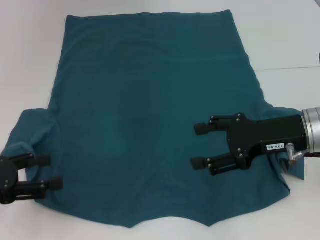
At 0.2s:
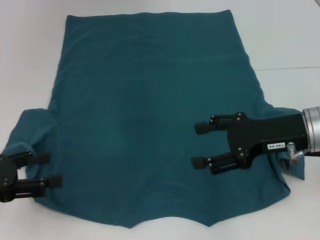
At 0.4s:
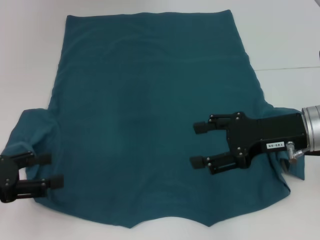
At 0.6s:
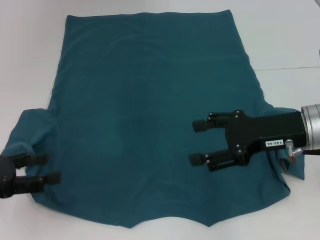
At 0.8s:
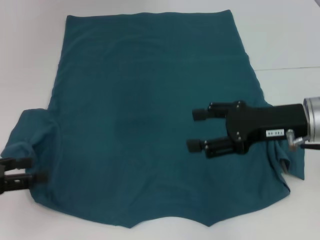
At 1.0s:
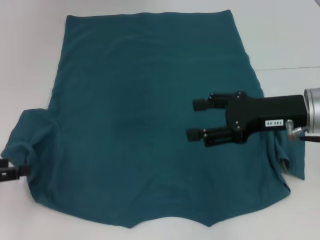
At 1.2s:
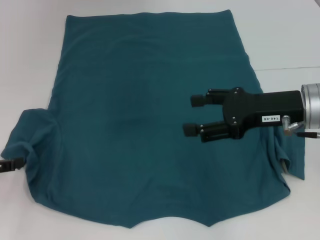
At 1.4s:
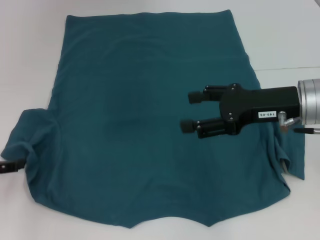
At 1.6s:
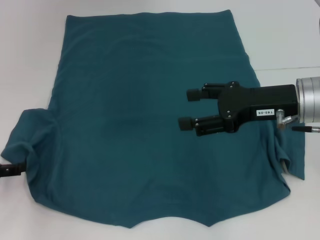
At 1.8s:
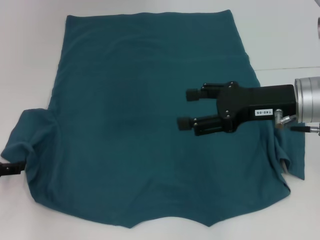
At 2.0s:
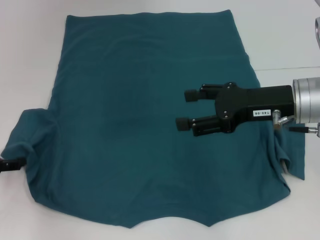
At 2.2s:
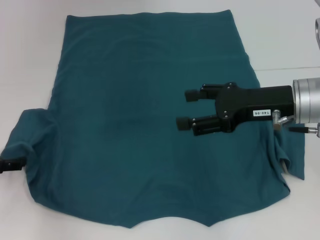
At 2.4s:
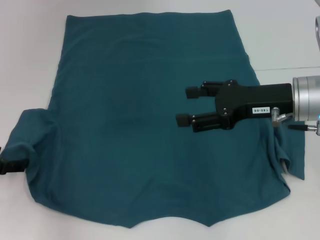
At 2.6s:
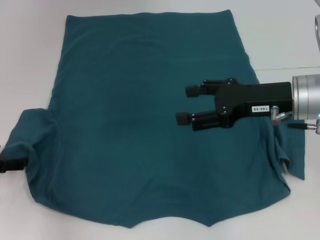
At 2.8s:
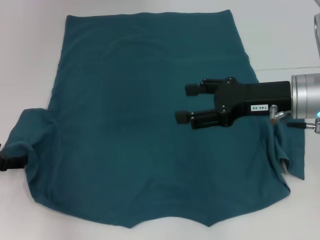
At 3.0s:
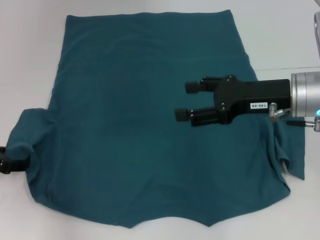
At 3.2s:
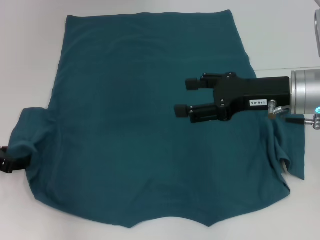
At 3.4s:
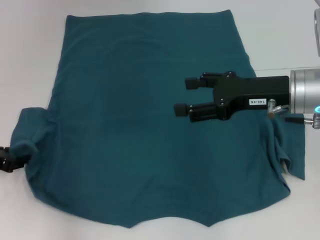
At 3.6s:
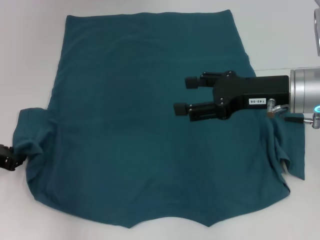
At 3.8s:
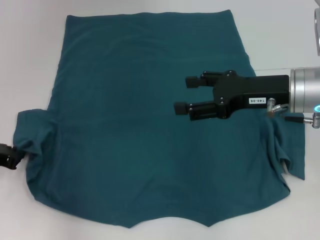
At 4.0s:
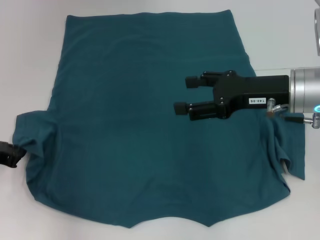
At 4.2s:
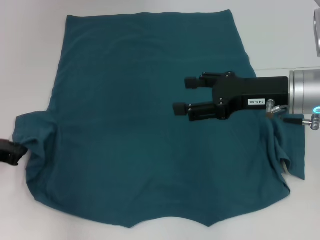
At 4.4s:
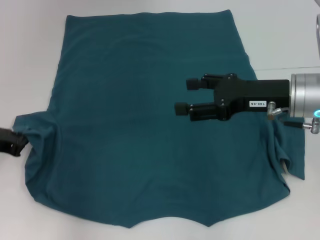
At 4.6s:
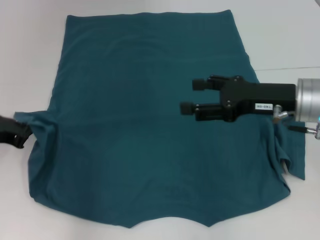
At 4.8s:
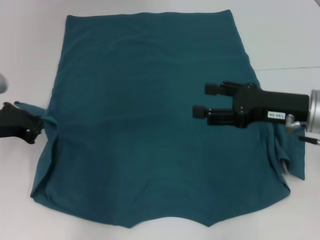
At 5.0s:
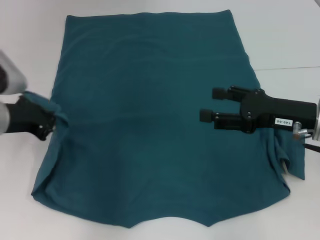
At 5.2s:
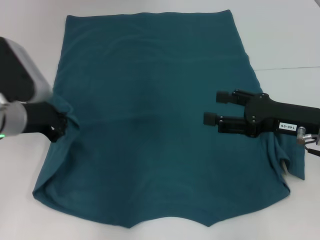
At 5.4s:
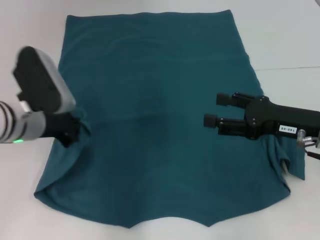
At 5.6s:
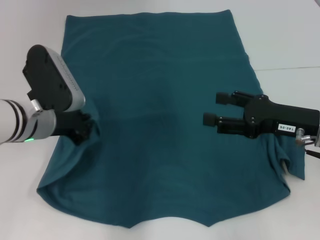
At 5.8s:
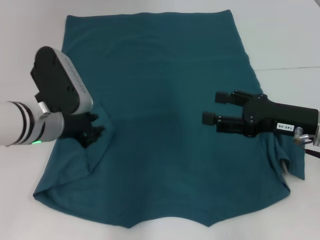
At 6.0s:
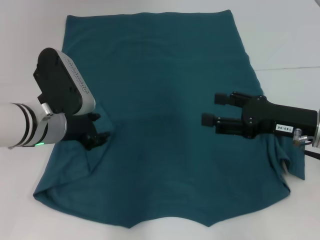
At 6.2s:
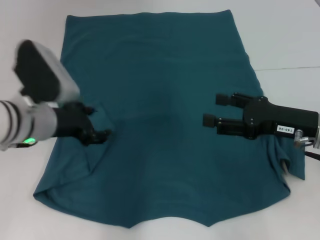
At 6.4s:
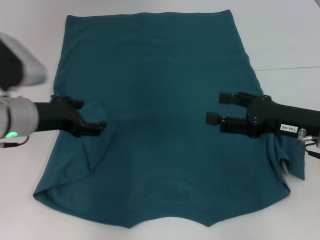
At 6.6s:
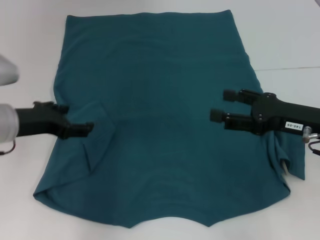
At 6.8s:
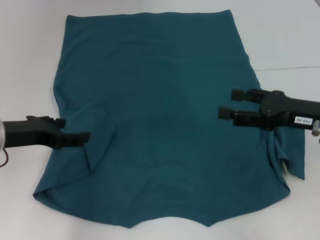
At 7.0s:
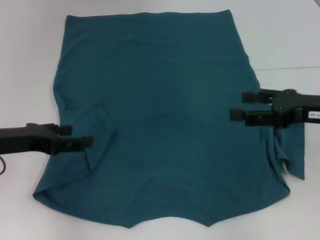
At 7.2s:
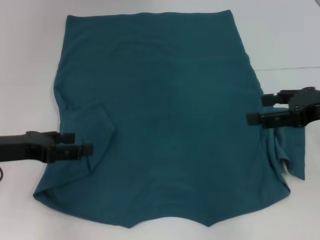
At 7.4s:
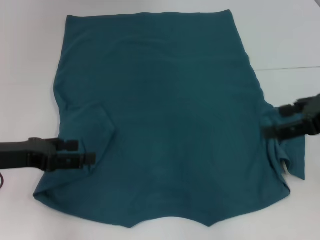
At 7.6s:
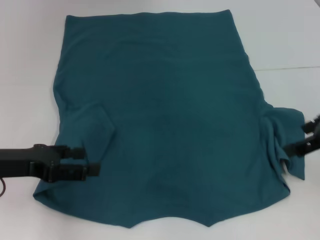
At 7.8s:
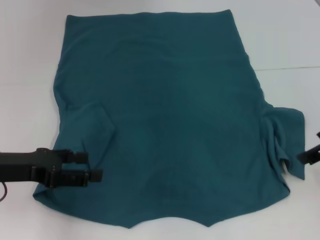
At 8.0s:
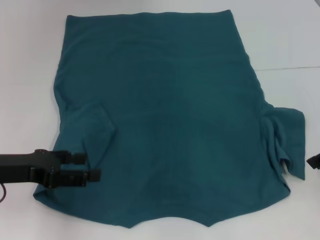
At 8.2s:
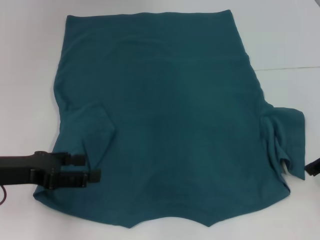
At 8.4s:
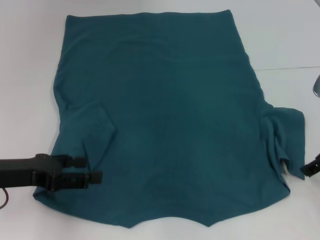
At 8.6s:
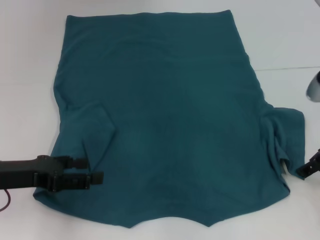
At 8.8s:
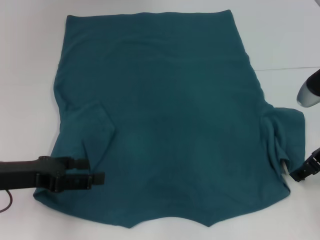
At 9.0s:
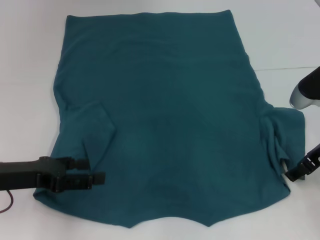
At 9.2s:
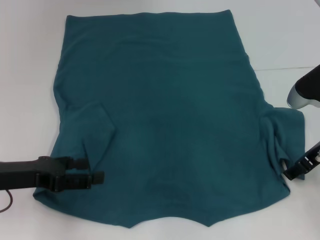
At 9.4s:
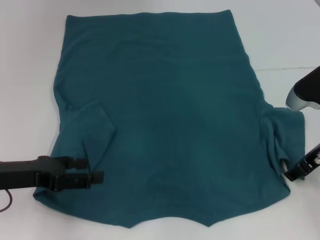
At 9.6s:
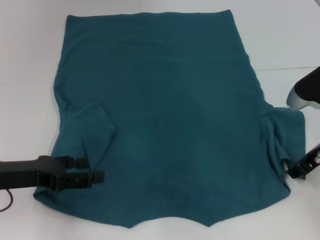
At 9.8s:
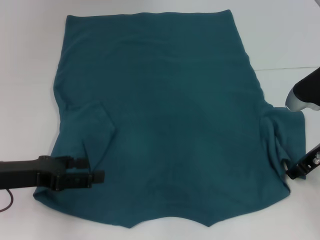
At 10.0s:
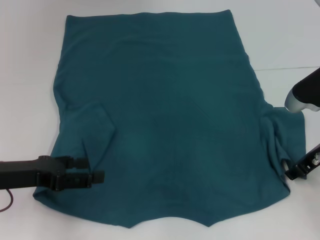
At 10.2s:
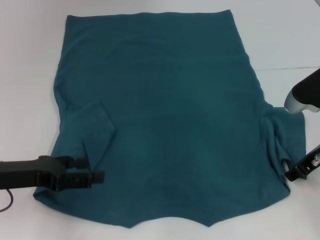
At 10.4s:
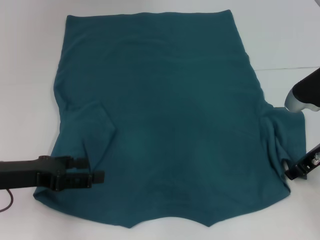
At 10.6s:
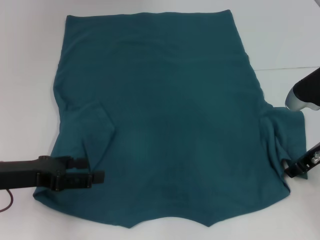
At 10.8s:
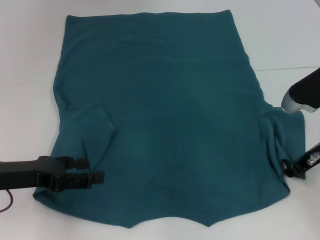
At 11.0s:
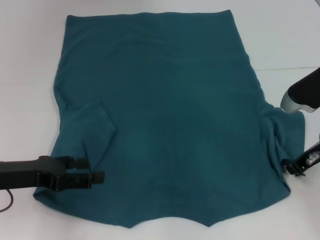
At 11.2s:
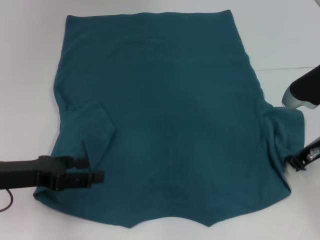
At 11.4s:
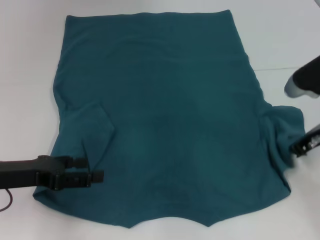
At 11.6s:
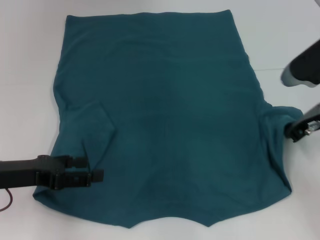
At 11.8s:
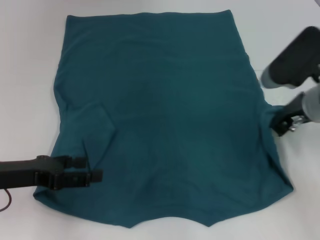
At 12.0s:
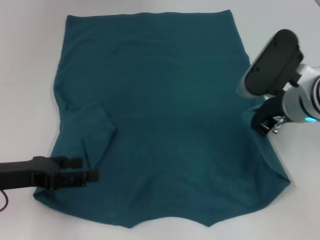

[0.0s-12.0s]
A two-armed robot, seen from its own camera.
Step, 0.0s to 6.0s: Fold the bottom left sleeve with your left hand.
0.0s to 1.6s: The left gripper ends up about 5 cm from where it was.
1.6s to 3.0s: The grippers make only small movements.
3.0s to 4.4s: The left gripper closes up.
4.4s to 6.0s: The left gripper is displaced to the right by approximately 15 cm, while the right gripper shifts by about 5 cm.
6.0s to 7.6s: The right gripper goes about 10 cm upward, while the left gripper is displaced to the left and backward by some 10 cm, and opens.
7.6s to 9.0s: The right gripper moves downward, approximately 10 cm.
9.0s to 10.4s: The right gripper closes up.
10.4s to 12.0s: The right gripper shifts approximately 5 cm to the left, and closes.

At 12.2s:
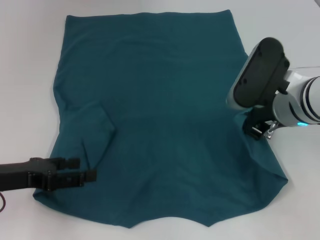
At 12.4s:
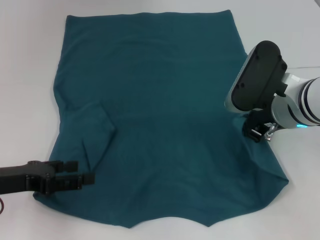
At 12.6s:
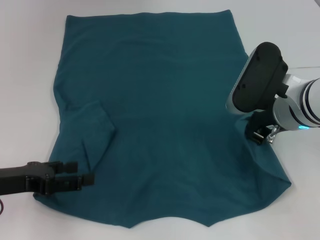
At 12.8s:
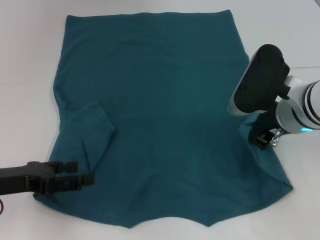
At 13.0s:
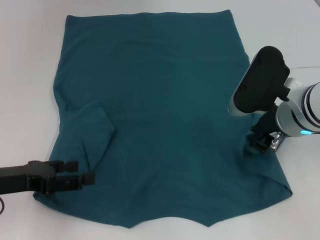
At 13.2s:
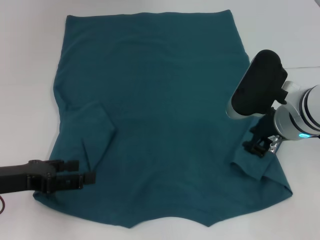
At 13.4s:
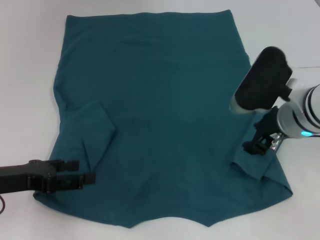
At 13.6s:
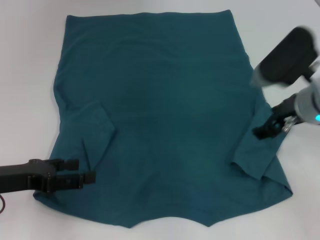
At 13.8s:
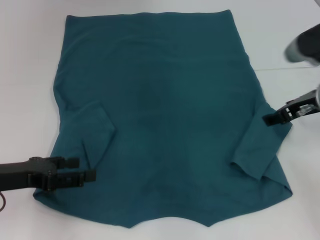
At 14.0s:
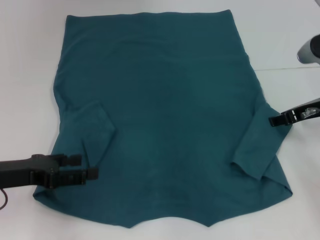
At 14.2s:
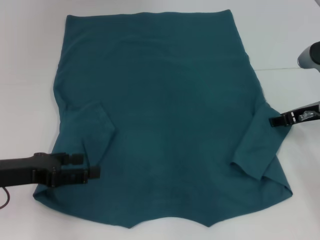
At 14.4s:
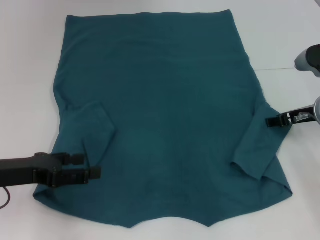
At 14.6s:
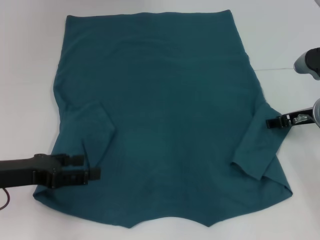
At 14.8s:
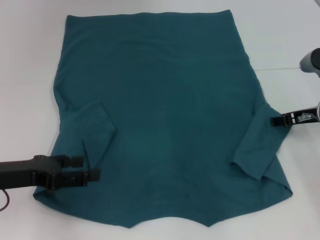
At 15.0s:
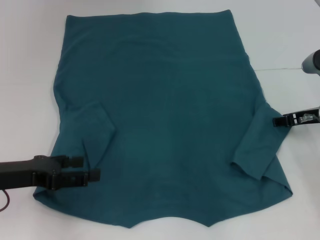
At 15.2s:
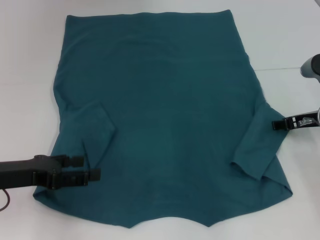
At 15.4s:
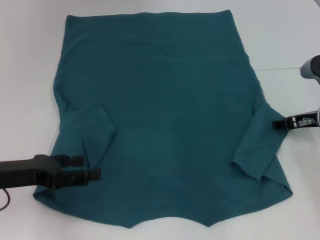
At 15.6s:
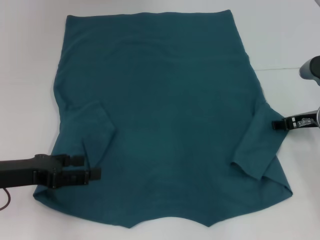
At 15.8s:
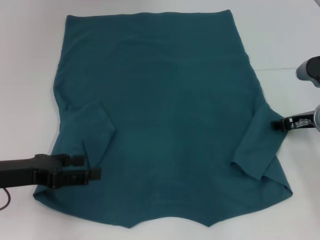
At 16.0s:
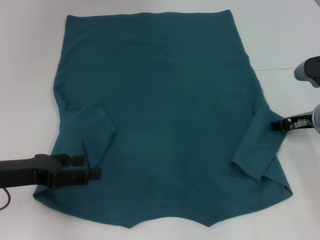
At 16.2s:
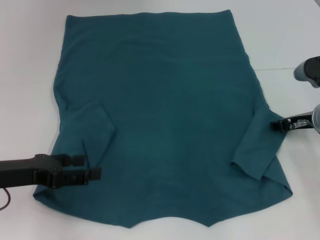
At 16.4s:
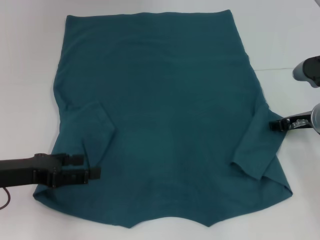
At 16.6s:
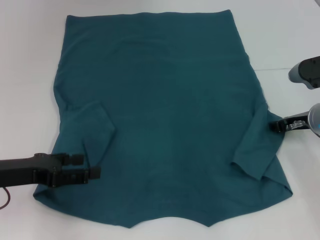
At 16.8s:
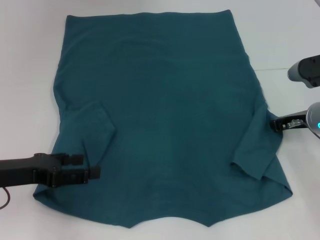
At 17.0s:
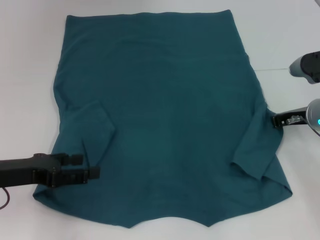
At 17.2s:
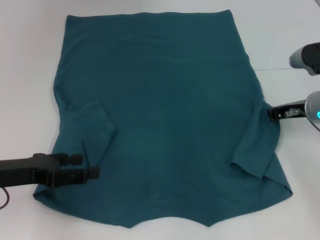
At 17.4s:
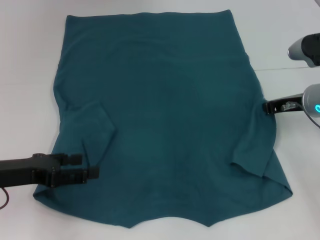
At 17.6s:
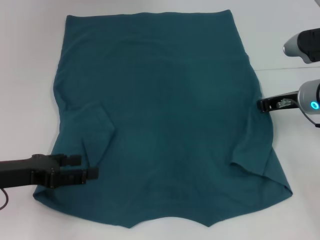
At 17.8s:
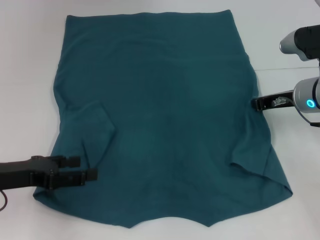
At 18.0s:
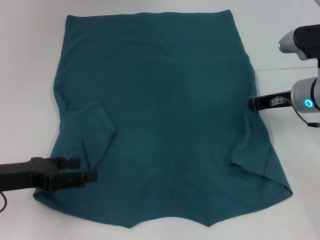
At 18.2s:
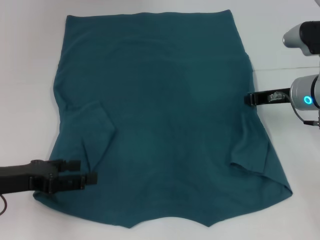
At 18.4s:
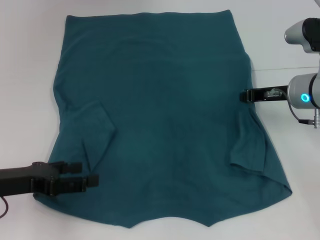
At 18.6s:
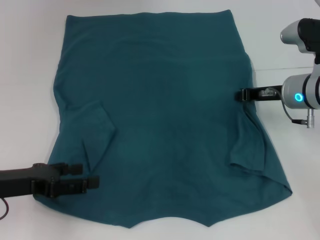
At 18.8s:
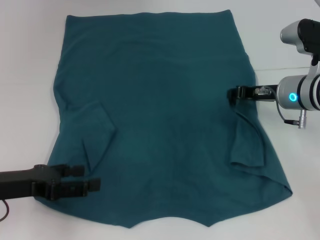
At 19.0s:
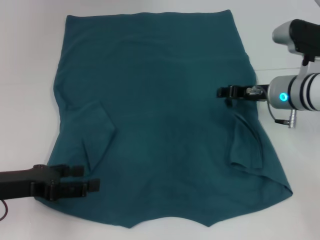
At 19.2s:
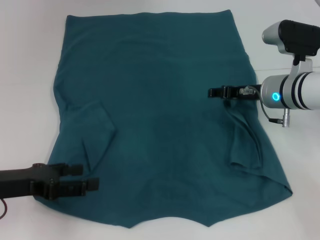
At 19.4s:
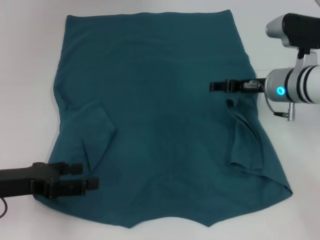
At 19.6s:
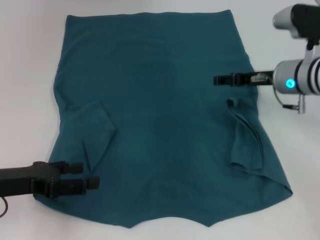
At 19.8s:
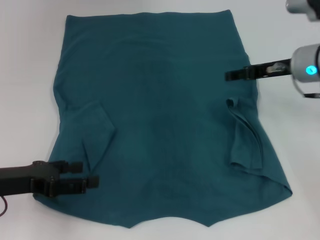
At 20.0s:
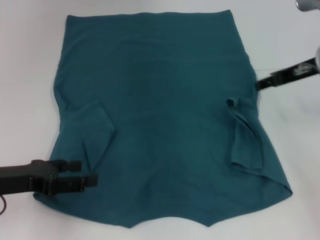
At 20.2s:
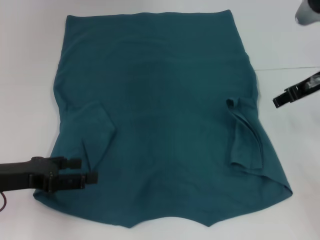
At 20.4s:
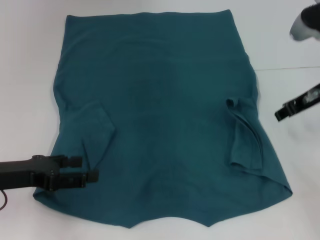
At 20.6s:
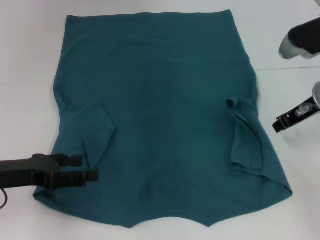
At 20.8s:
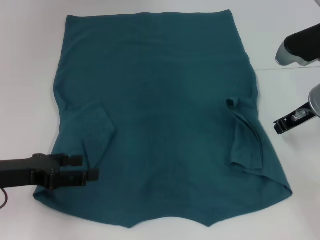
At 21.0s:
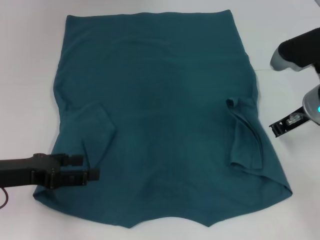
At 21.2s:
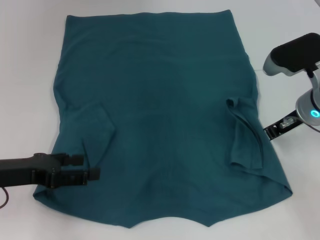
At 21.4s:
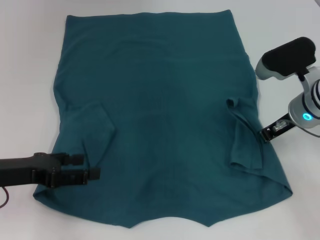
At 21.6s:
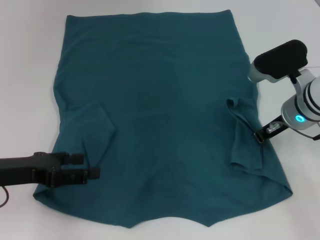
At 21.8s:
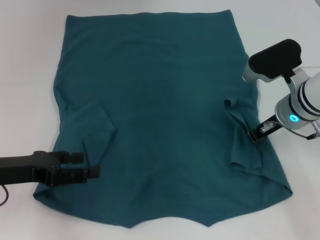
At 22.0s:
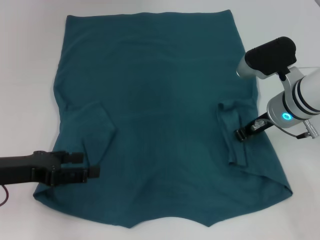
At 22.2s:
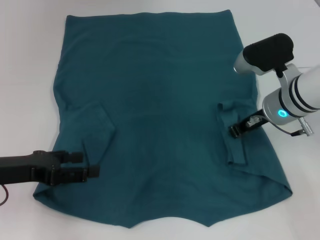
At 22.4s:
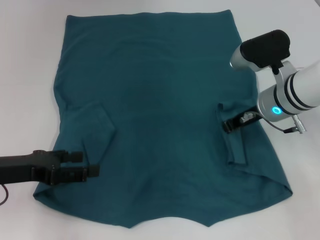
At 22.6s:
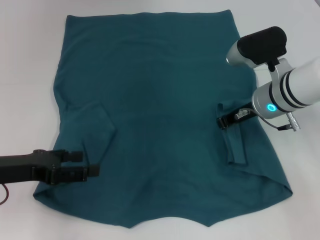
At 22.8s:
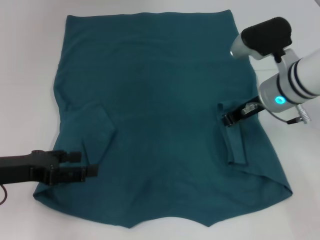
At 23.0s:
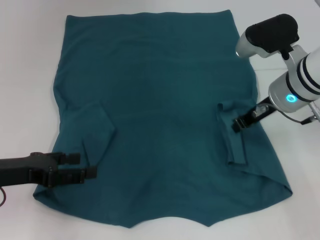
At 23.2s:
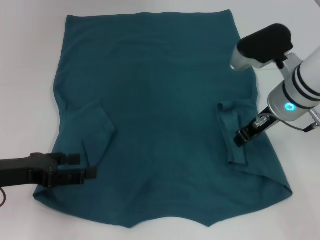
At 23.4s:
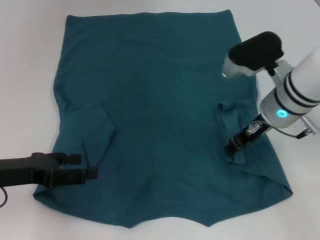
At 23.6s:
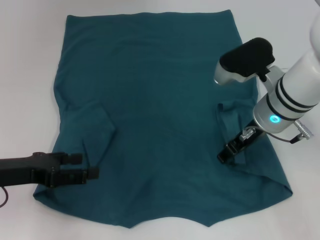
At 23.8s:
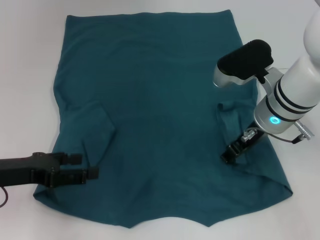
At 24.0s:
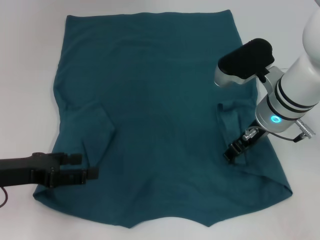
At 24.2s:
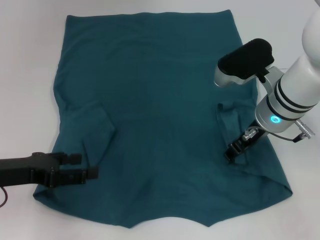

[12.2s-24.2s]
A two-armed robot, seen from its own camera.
12.2s to 13.8s: The right gripper moves to the right, about 5 cm, and opens its fingers.
13.8s to 15.2s: The right gripper goes approximately 5 cm downward.
15.2s to 16.6s: The grippers move only a little.
16.6s to 18.2s: The right gripper ends up some 5 cm from where it was, and closes its fingers.
18.2s to 19.8s: The right gripper ends up some 5 cm from where it was, and opens.
19.8s to 21.2s: The right gripper closes up.
21.2s to 22.6s: The right gripper shifts approximately 5 cm to the left.
22.6s to 24.2s: The right gripper opens up.
